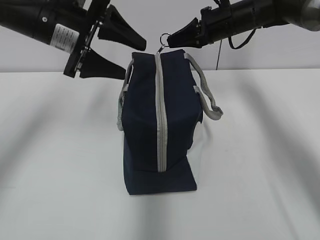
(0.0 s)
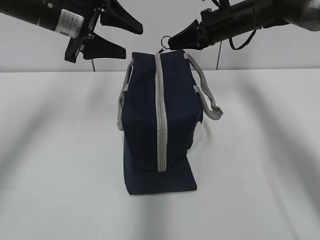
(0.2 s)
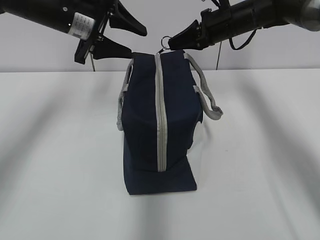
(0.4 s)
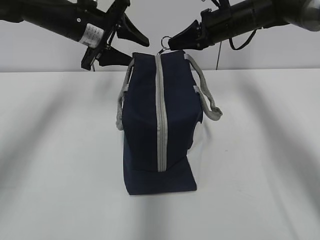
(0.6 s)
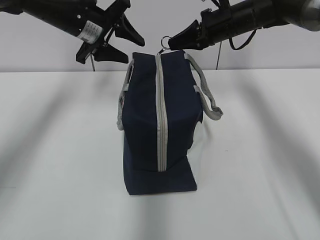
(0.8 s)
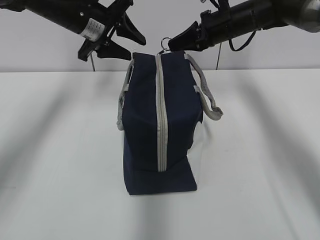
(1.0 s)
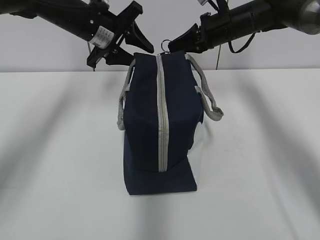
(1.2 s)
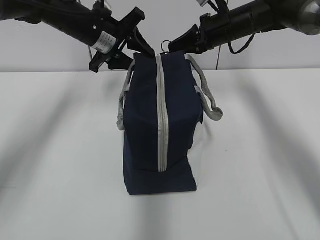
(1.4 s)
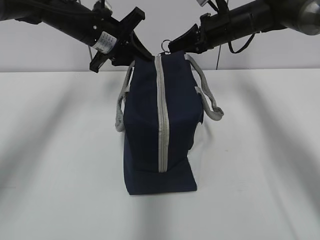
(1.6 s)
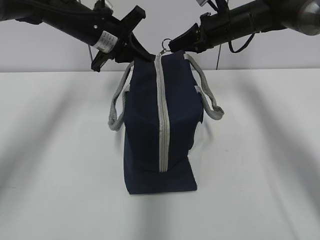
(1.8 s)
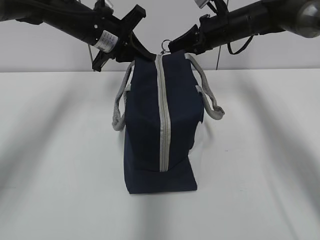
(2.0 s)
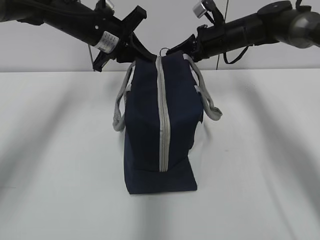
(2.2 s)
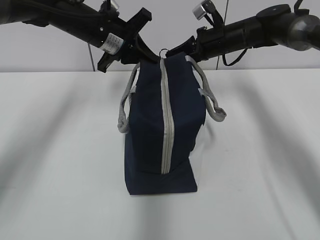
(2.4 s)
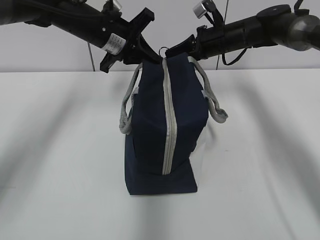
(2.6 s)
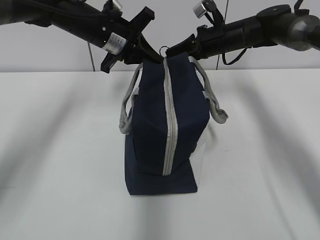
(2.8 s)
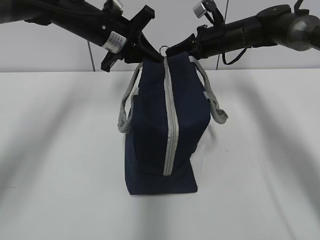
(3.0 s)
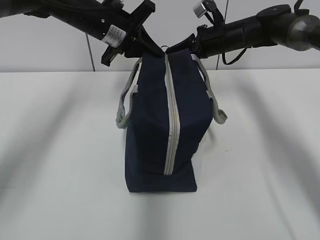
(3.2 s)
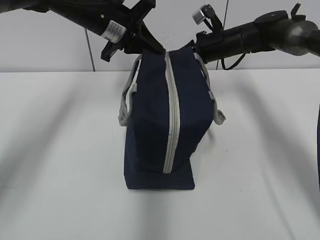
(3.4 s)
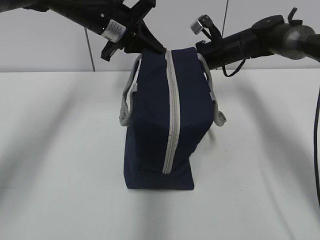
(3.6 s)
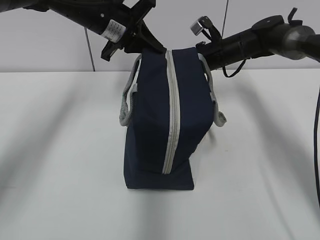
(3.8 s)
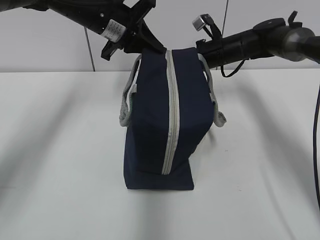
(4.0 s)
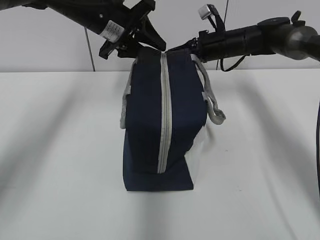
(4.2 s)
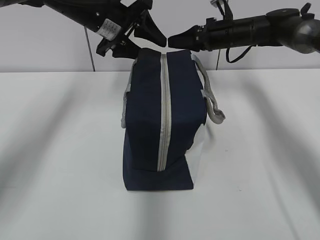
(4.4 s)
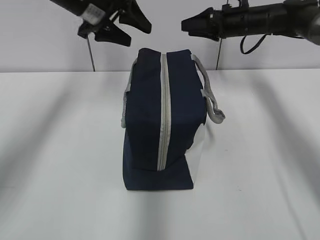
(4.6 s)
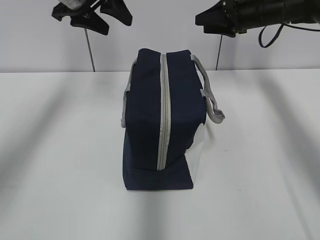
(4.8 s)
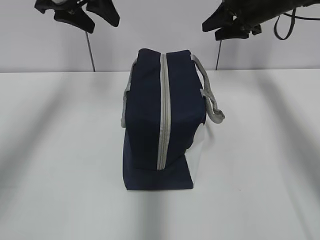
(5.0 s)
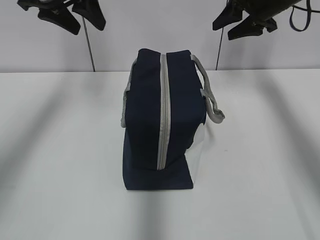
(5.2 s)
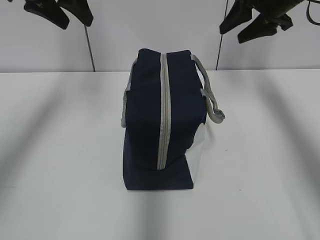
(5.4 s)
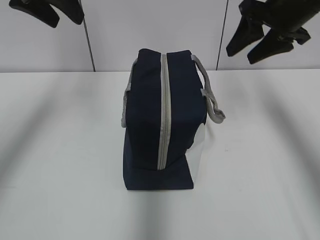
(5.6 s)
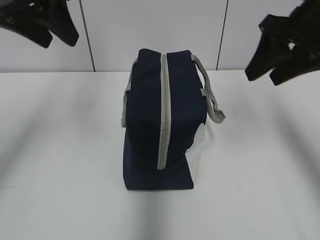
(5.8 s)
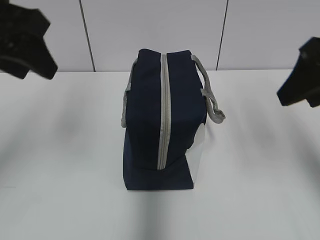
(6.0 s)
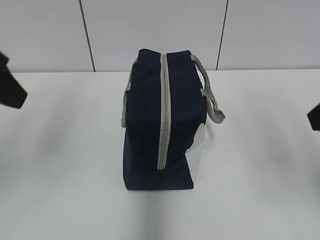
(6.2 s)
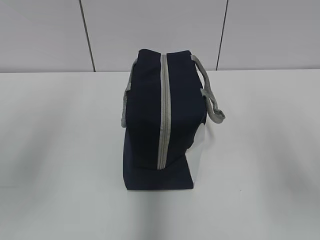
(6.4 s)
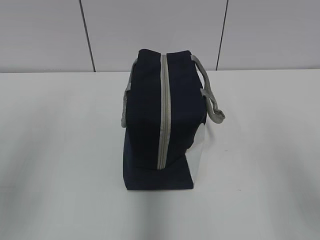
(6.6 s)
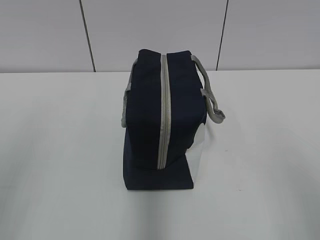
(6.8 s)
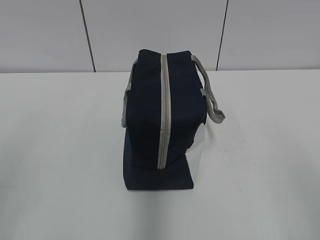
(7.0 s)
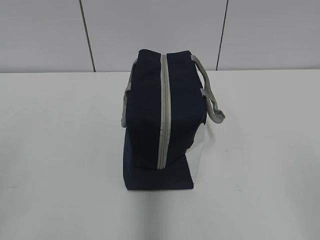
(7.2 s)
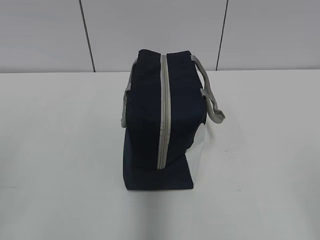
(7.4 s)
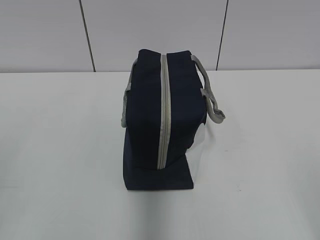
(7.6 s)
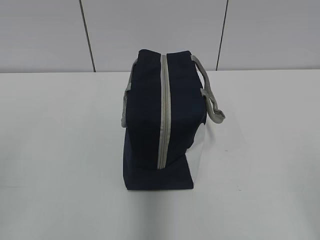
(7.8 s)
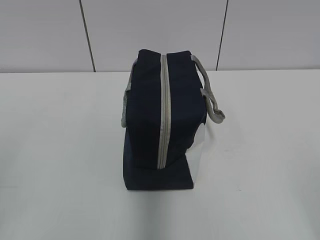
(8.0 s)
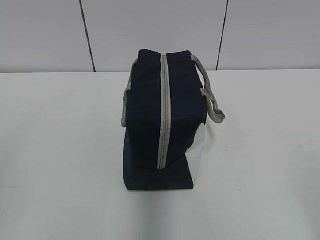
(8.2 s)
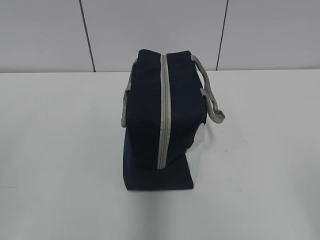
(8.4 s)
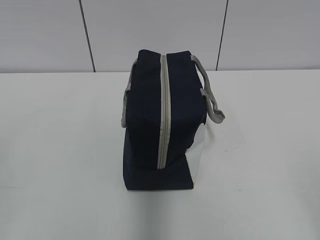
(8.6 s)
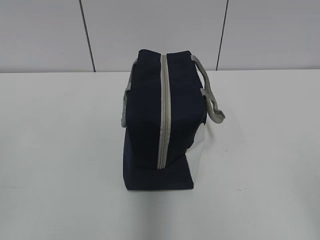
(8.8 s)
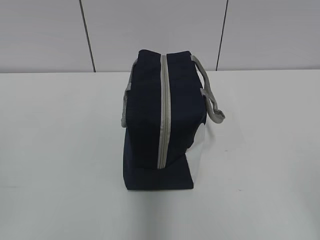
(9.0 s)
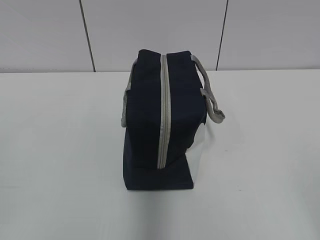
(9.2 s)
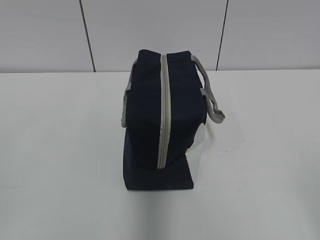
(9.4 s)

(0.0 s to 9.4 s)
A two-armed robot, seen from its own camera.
0.0 s - 1.6 s: The left gripper travels forward by about 10 cm, and closes up.
1.6 s - 3.2 s: The left gripper closes its fingers.
3.2 s - 4.8 s: The right gripper heads to the right, covering roughly 5 cm, and opens. The left gripper goes some 5 cm upward, and opens.
4.8 s - 6.2 s: The right gripper is displaced backward by roughly 35 cm. The left gripper travels backward by roughly 20 cm.
6.2 s - 7.8 s: The right gripper shifts approximately 20 cm backward; the left gripper travels backward, to the left and downward by roughly 20 cm.

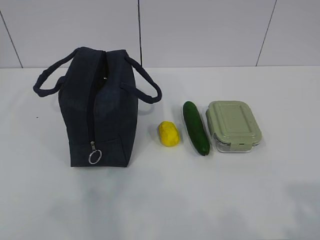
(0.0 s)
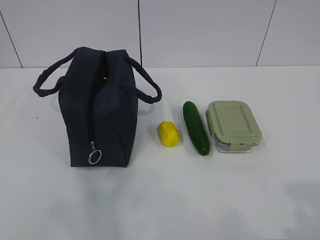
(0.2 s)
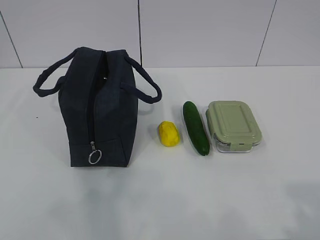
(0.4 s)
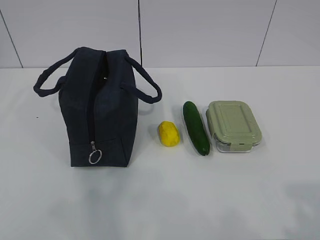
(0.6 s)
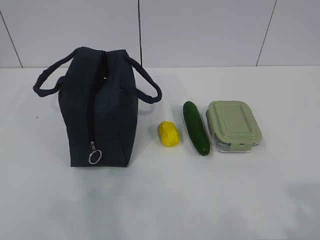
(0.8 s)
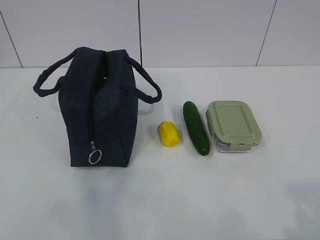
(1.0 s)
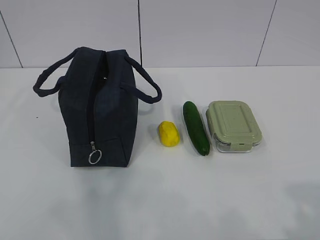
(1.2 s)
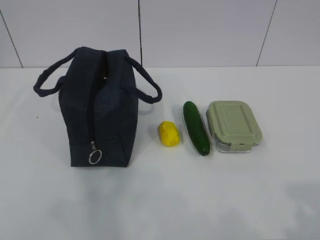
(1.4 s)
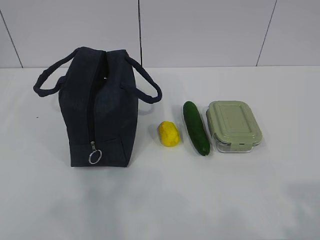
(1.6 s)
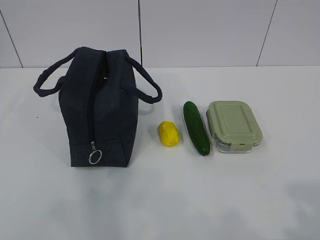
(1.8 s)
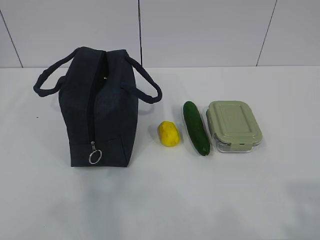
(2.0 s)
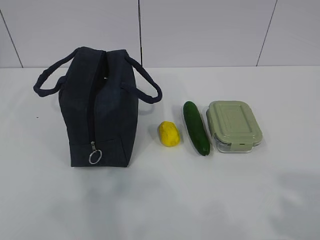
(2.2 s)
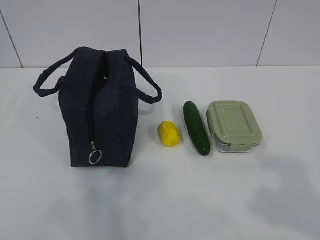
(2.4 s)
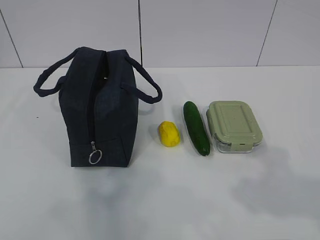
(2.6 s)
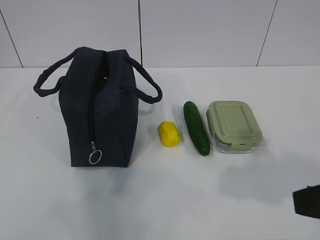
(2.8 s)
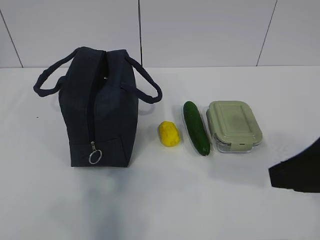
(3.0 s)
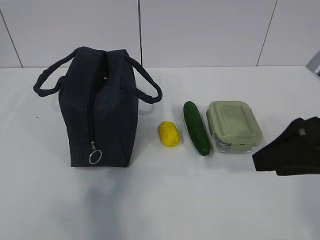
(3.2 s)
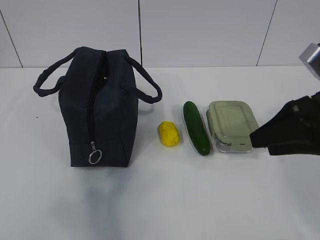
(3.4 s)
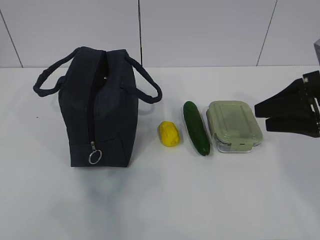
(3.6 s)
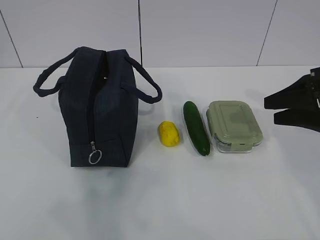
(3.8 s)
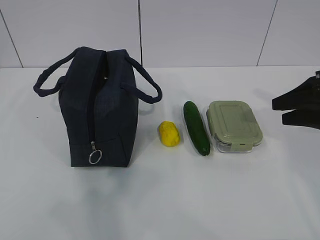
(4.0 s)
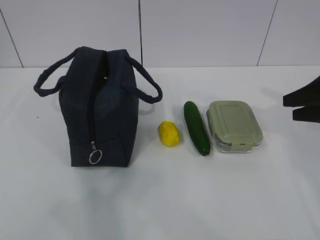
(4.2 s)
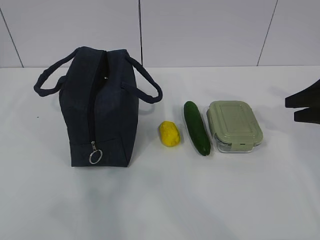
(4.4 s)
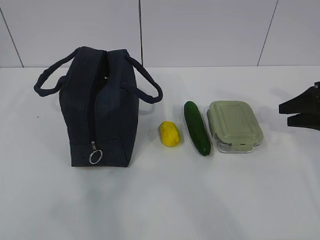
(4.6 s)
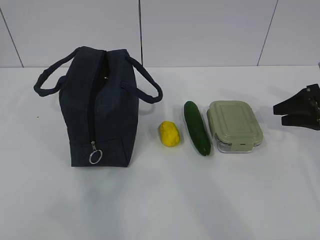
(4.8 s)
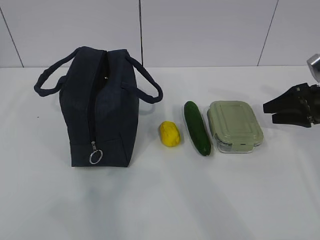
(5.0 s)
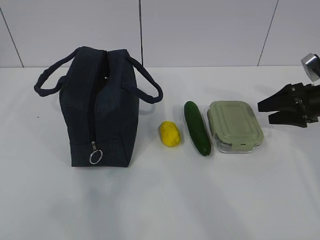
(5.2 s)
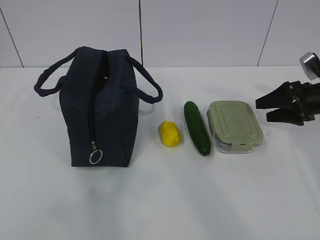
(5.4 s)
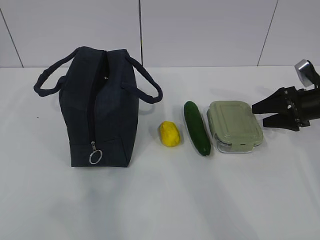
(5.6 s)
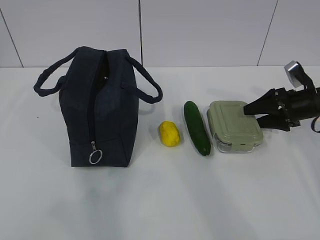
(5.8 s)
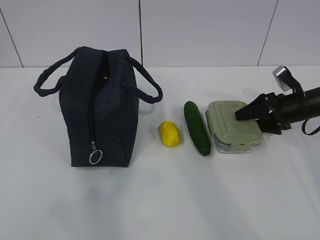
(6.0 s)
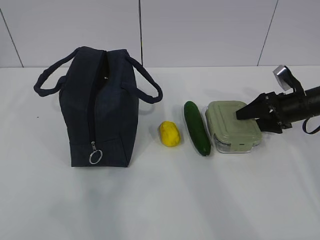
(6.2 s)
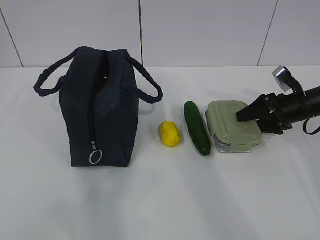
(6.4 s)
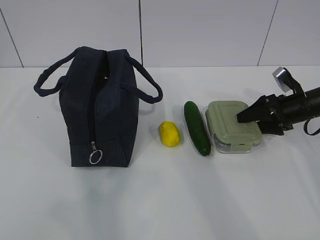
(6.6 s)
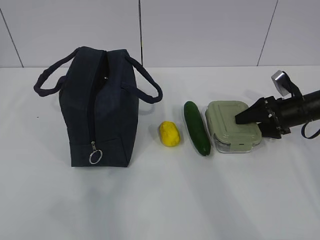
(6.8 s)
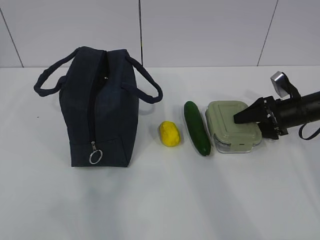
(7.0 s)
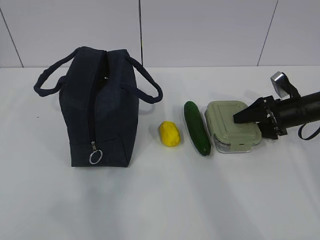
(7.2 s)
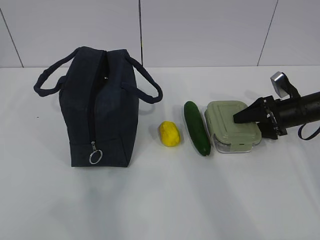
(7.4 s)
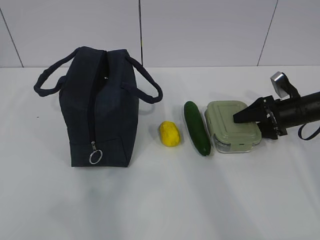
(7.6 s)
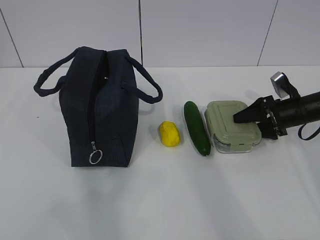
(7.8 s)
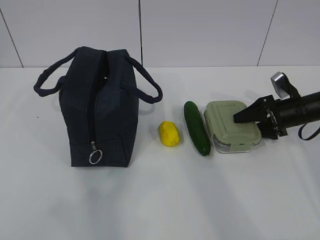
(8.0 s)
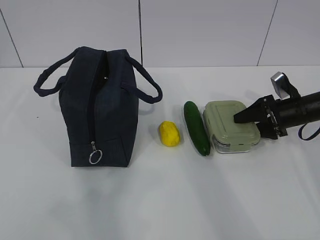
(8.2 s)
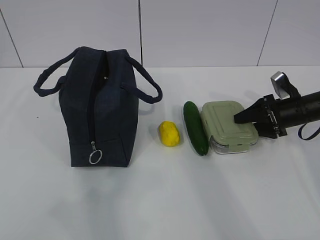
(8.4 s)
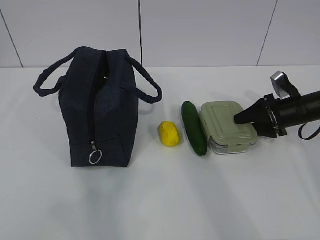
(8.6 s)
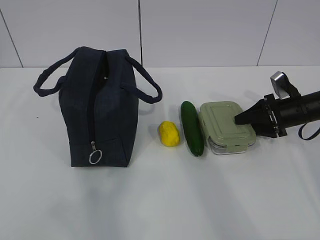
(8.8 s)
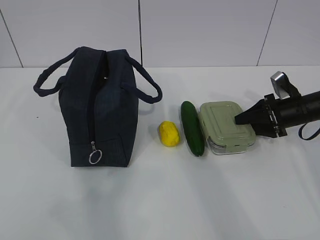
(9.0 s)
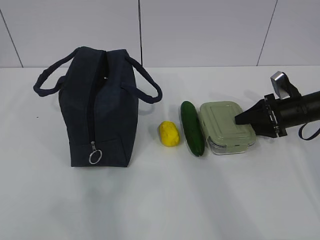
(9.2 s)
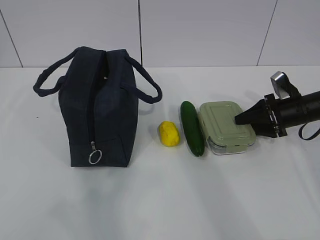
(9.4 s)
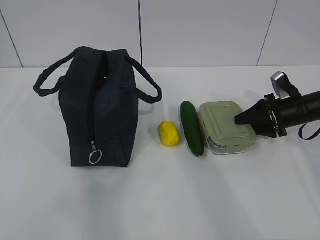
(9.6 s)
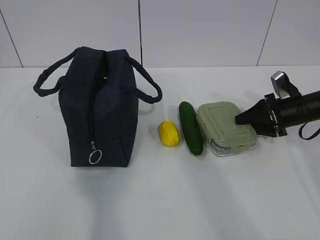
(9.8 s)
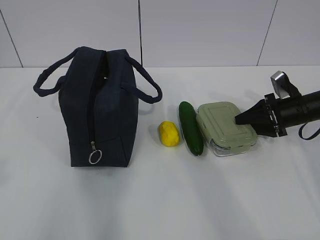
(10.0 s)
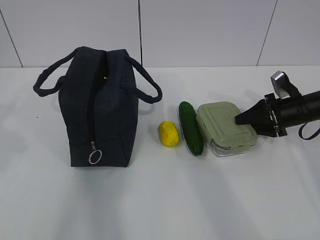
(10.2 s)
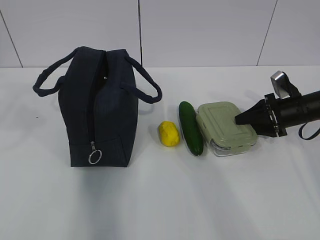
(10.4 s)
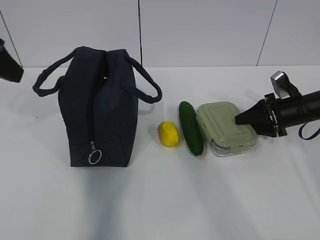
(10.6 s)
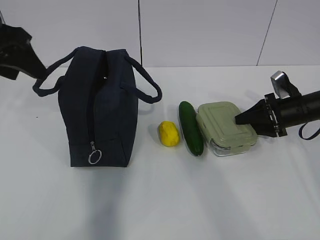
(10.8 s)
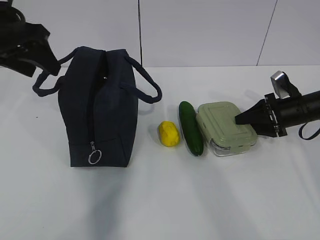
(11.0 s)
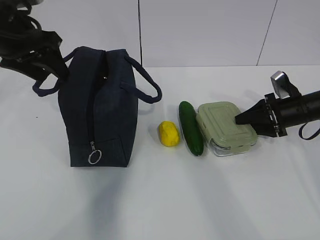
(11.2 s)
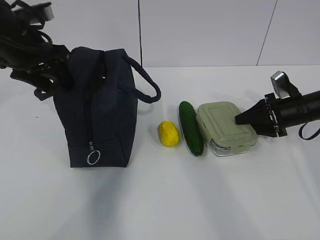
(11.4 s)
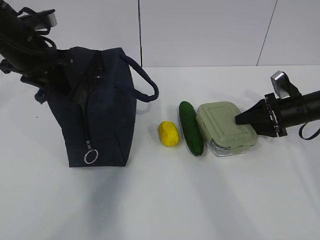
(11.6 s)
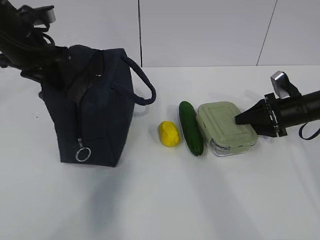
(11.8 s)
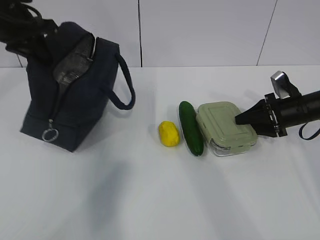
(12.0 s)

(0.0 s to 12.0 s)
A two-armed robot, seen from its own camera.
Step, 0.0 s - 11.4 s: Grab the lunch box with your right hand.
1.6 s - 3.0 s: The right gripper heads forward, covering about 15 cm.
3.0 s - 4.4 s: The right gripper goes approximately 25 cm forward, to the right and downward.
4.4 s - 6.0 s: The right gripper travels downward and forward by some 10 cm.
6.0 s - 7.6 s: The grippers move only a little.
7.6 s - 9.0 s: Both grippers stay put.
9.0 s - 10.4 s: The left gripper travels forward by approximately 20 cm.
10.4 s - 12.0 s: The left gripper shifts roughly 20 cm forward, and closes its fingers.

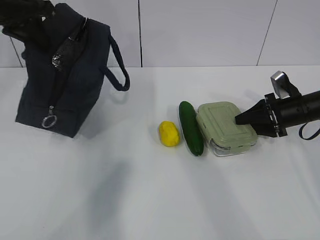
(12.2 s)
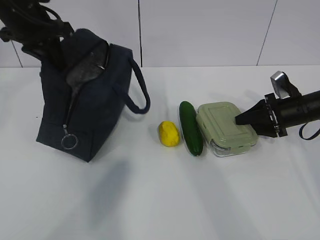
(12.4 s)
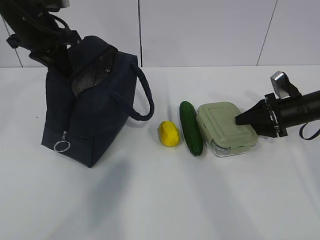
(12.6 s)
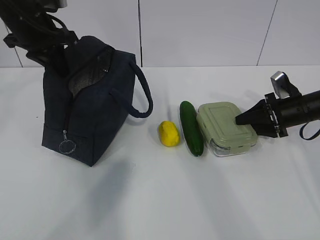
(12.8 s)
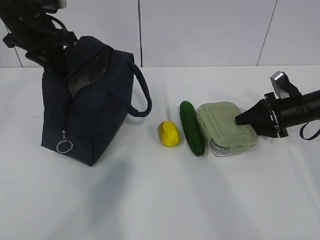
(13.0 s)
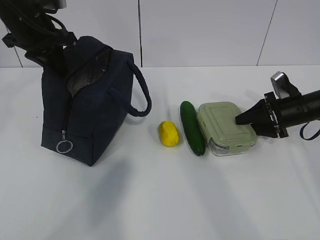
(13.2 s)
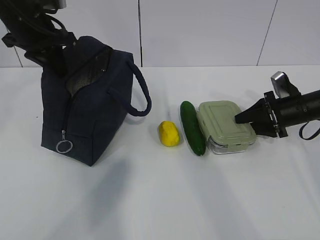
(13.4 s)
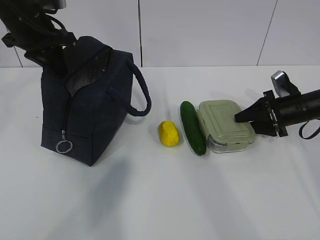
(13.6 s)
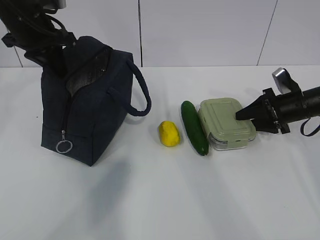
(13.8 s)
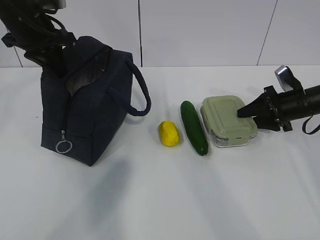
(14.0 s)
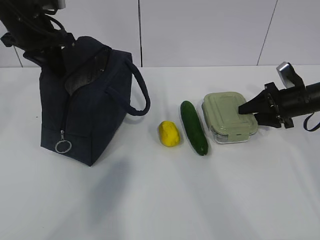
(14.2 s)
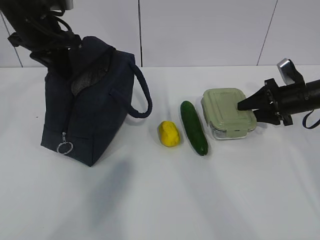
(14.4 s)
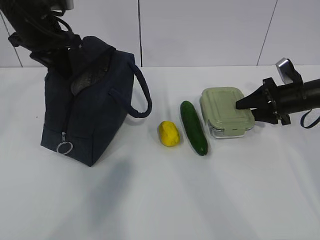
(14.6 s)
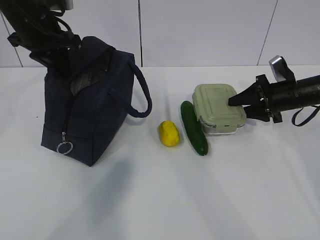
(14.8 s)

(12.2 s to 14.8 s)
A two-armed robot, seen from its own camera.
Step, 12.2 s - 13.4 s: Grab the lunch bag with your left hand.
12.2 s - 14.8 s: The grippers make only small movements.
